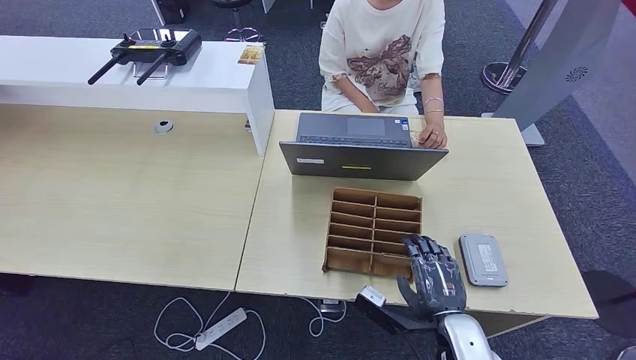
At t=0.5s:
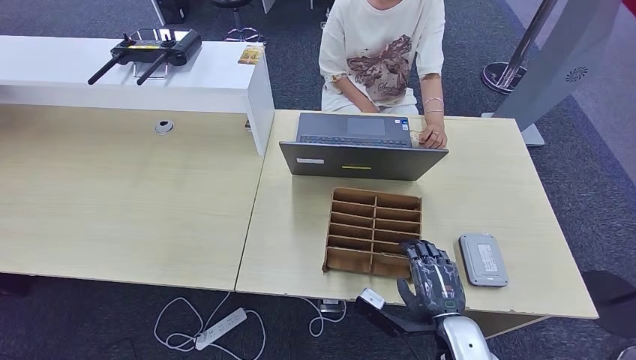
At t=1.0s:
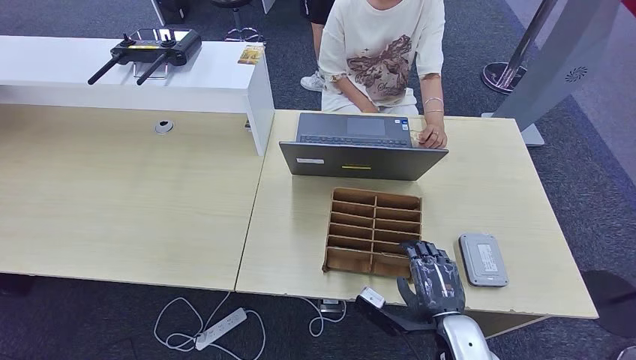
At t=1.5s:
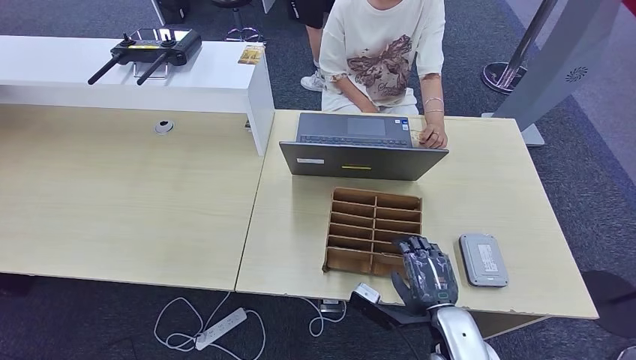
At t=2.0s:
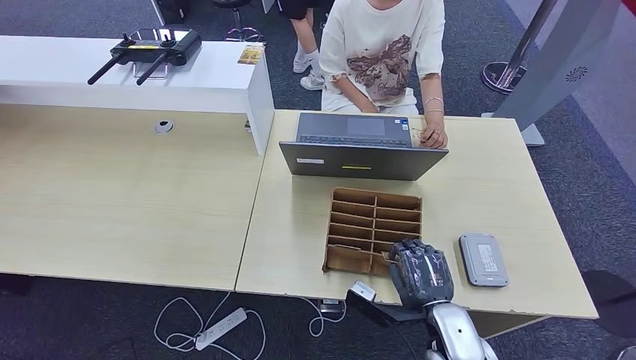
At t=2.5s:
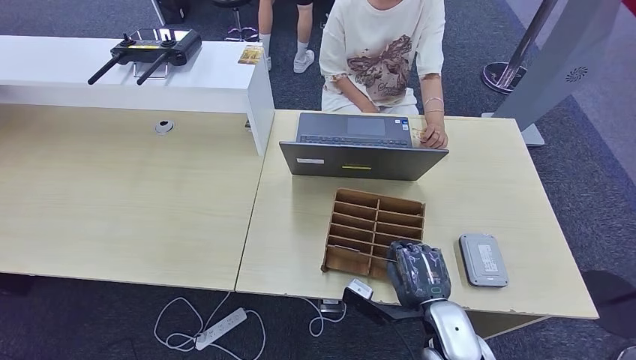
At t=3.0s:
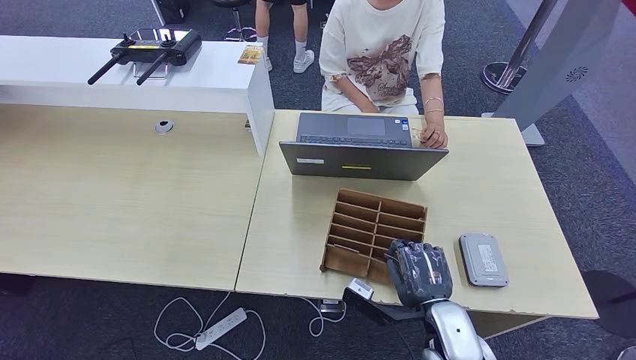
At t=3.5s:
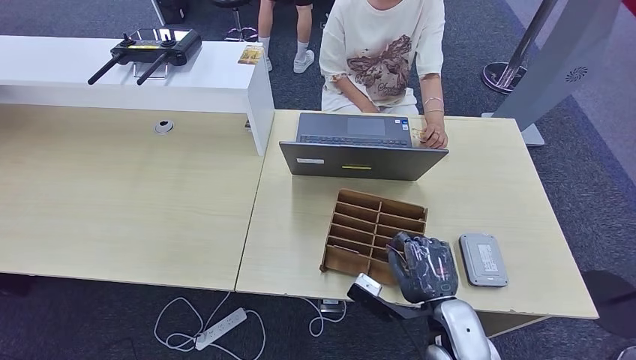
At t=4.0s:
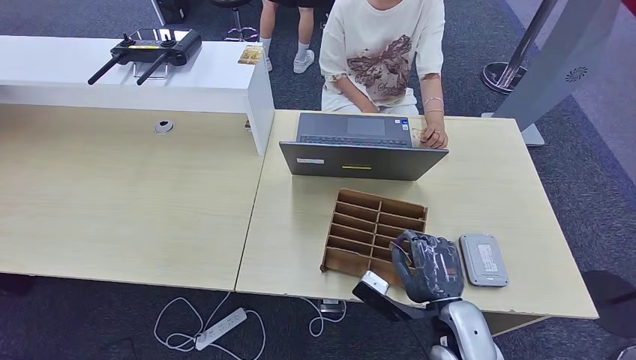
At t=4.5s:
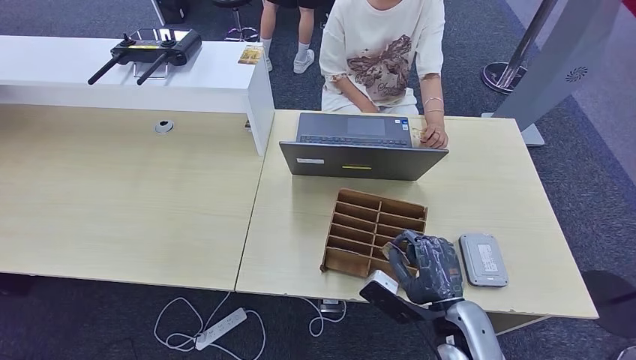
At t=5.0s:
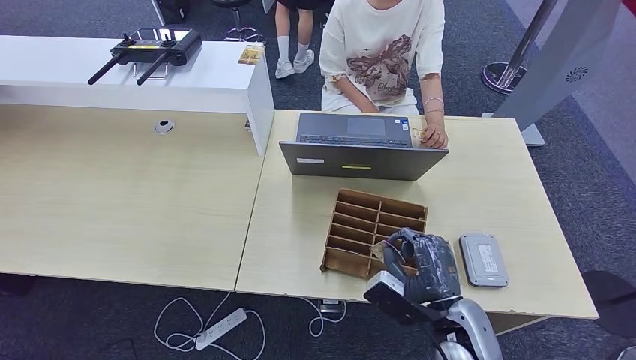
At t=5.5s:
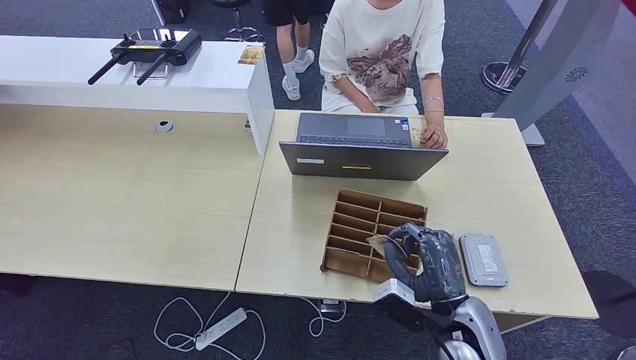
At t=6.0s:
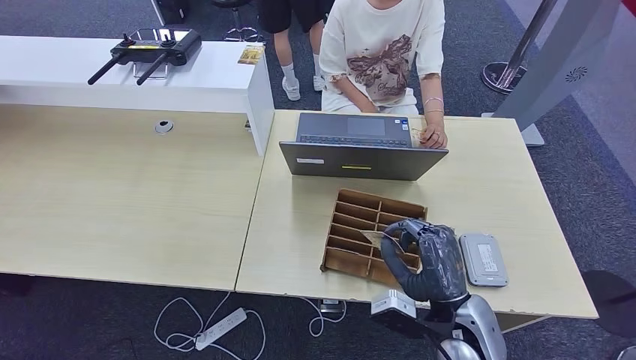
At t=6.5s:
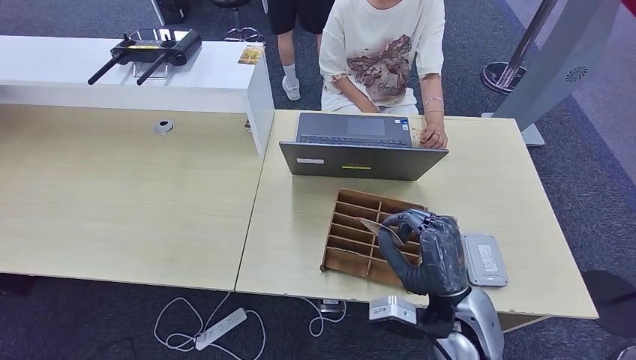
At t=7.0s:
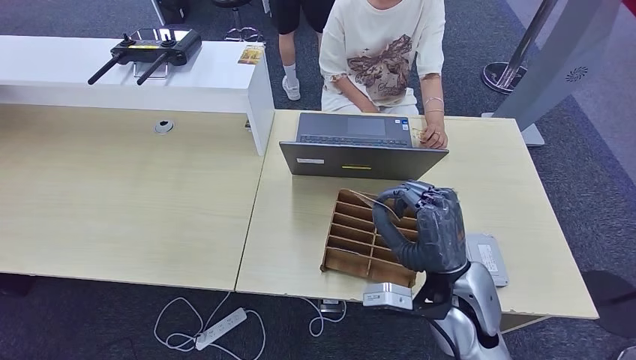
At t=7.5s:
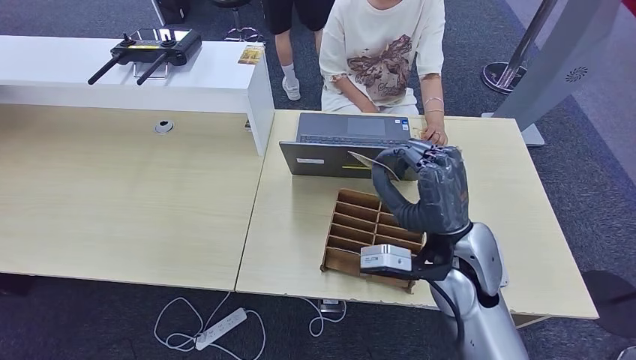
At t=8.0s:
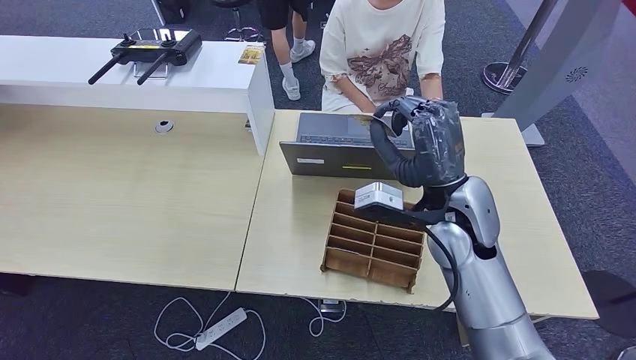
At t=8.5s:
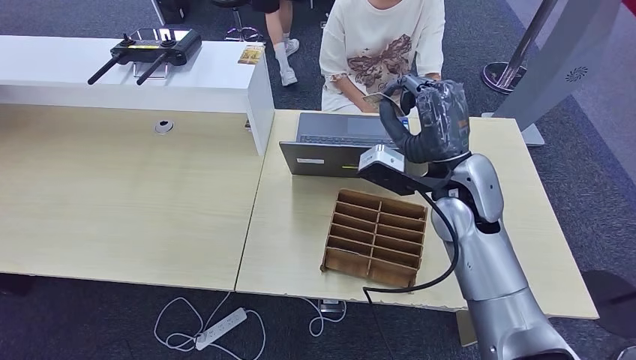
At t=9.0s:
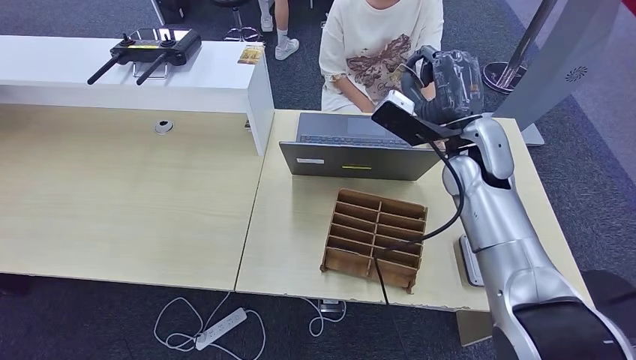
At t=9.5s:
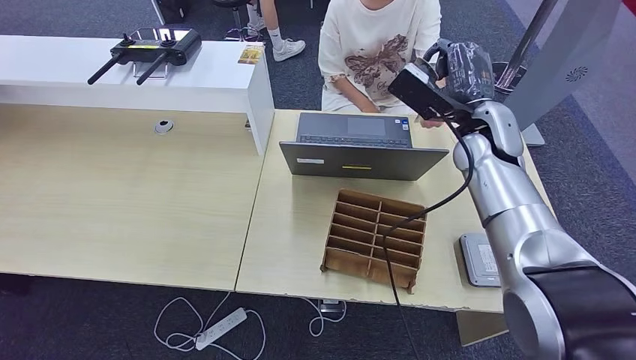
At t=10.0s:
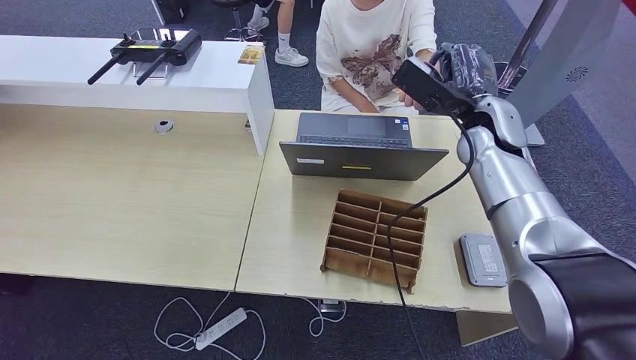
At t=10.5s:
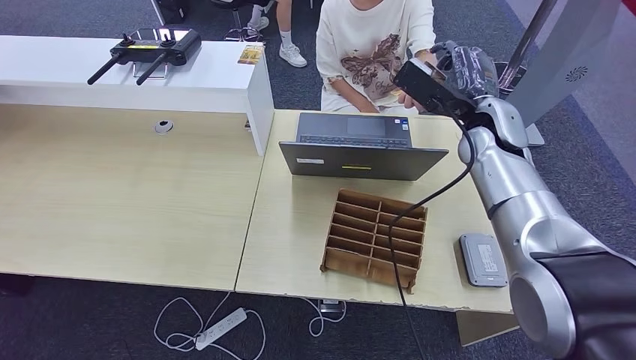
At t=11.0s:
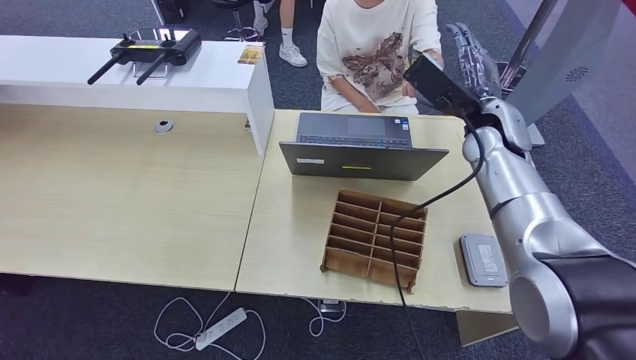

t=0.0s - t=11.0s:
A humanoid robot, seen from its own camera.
Step, t=0.0s - t=3.0s: Pick up the room key from the key card box.
Step, t=3.5s - t=11.0s: Hand the room key to the person.
t=0.0s - t=3.5s: The hands move only a little.
t=5.5s - t=7.5s: The right hand heads upward and forward, covering approximately 15 cm.
t=7.5s - t=9.0s: The right hand goes approximately 15 cm forward and upward.
t=9.0s - t=11.0s: The right hand changes place by some 5 cm.
